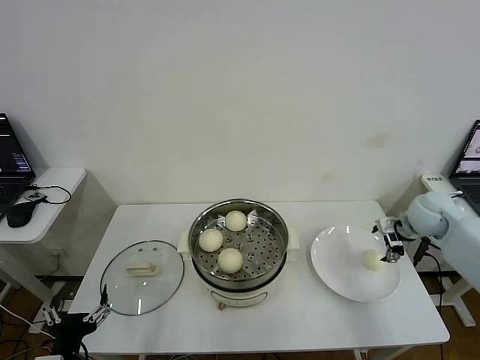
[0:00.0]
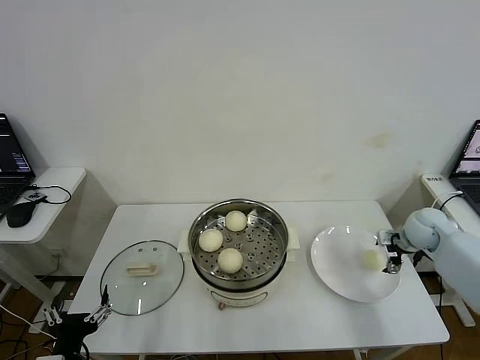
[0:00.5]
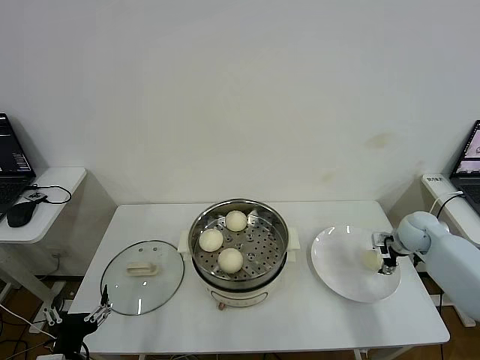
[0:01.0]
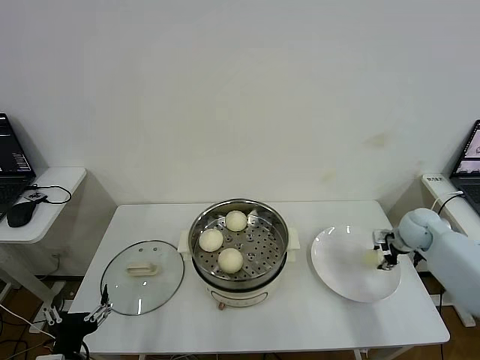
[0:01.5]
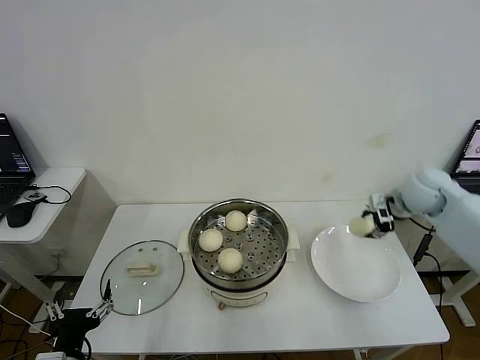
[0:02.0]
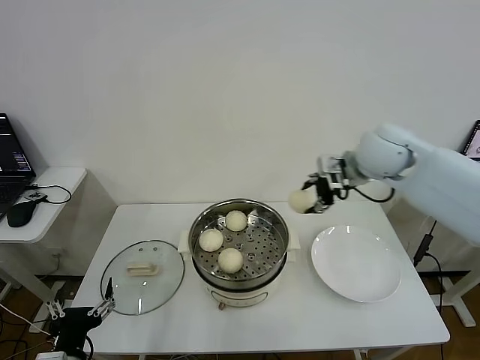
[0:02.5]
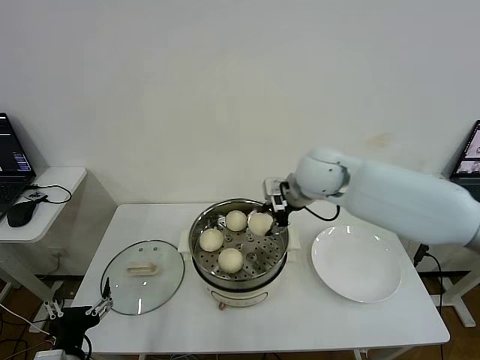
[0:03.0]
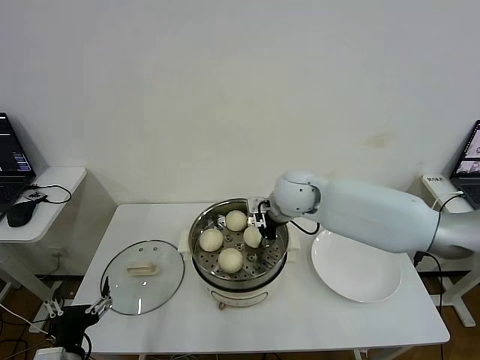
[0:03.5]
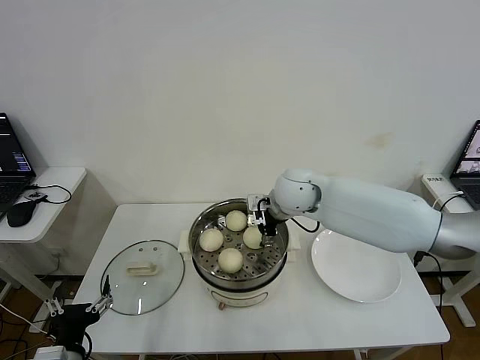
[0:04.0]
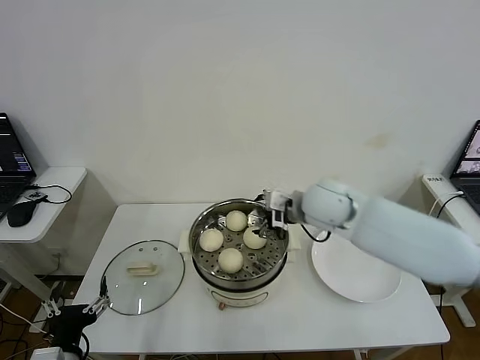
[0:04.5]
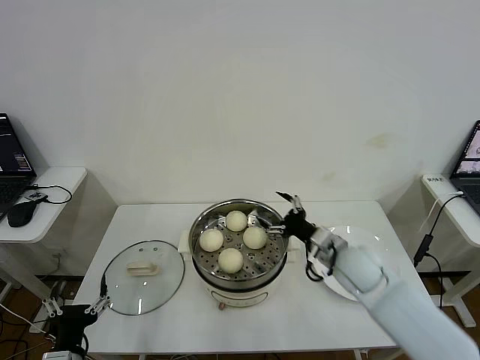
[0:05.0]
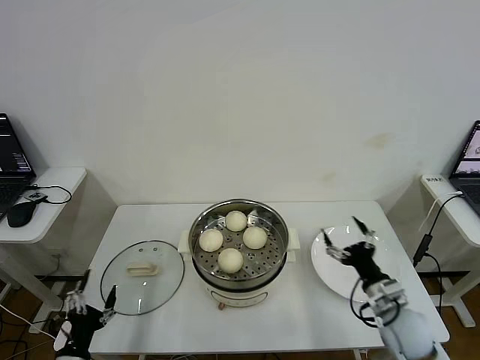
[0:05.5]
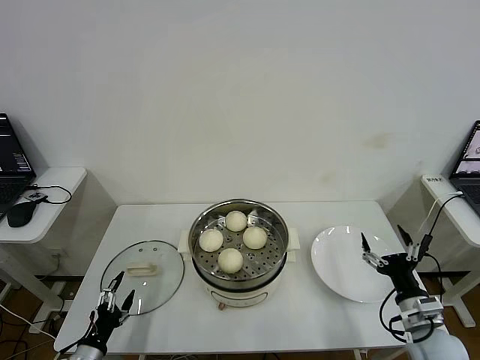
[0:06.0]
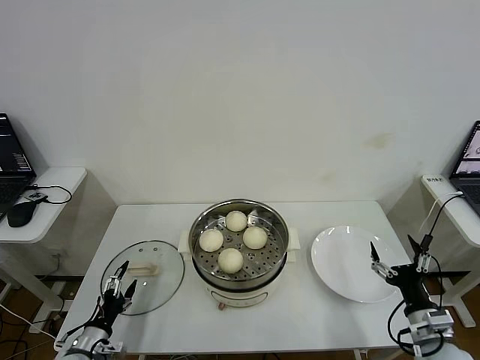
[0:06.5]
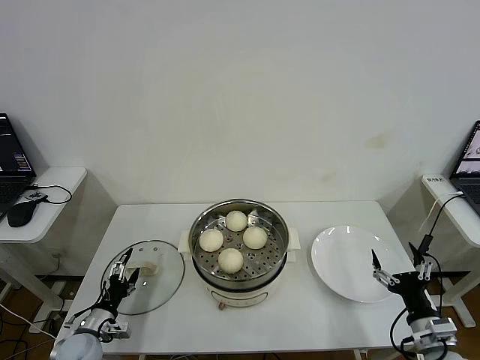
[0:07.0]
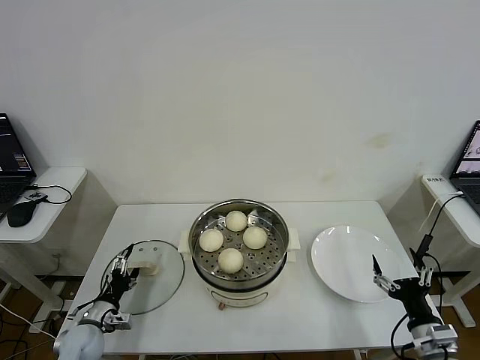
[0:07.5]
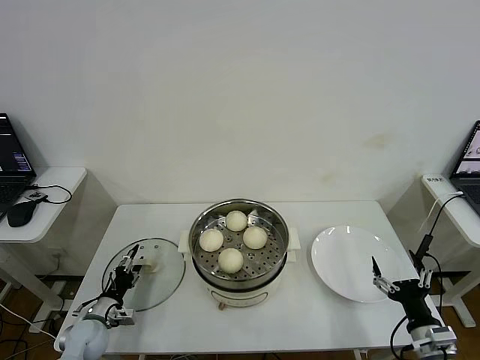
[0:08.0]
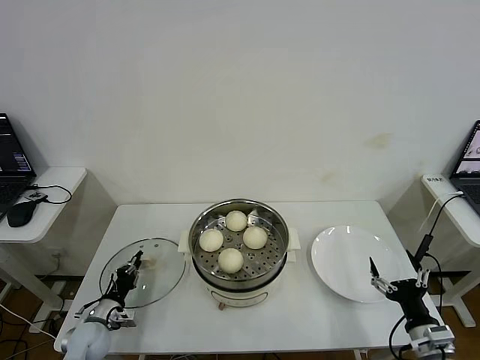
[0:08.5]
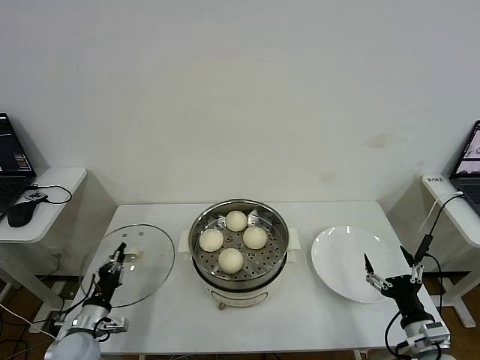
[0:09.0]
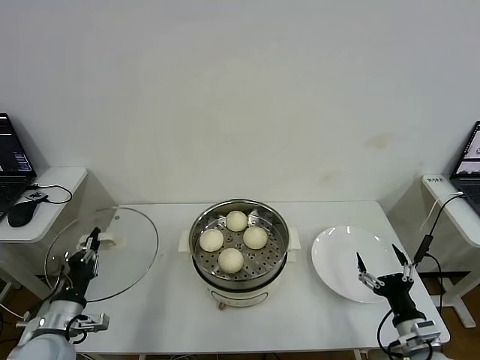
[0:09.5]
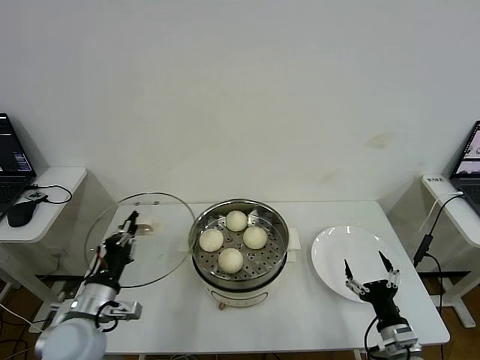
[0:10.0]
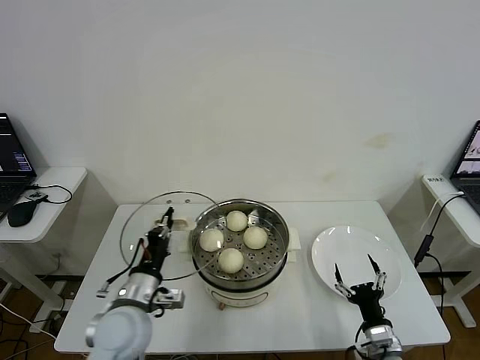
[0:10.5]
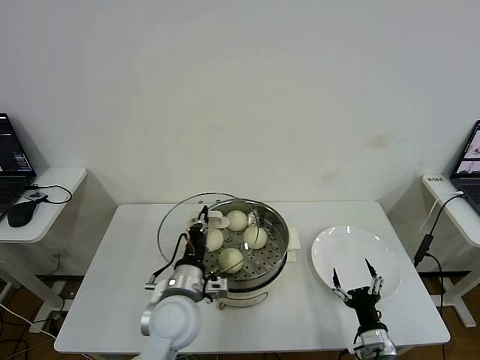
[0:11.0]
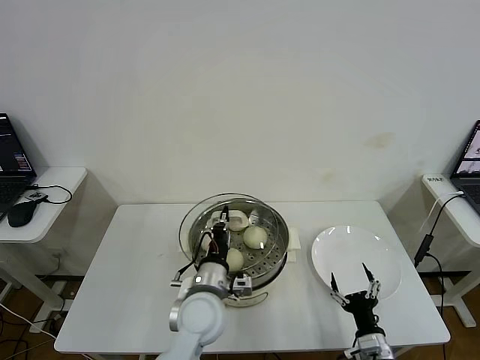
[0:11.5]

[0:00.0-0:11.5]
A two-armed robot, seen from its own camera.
Step, 0:02.0 to 0:04.0: Place the baozi on the steamer with right gripper.
Step, 0:04.5 to 0:08.5: Grasp the pot lid with left gripper.
0:00.0 to 0:02.0: The right gripper heads upward, covering approximately 10 cm, and closes up.
0:02.0 to 0:04.0: The right gripper heads to the left, covering about 25 cm, and opens.
0:04.0 to 0:06.0: The left gripper heads downward and to the left, covering some 15 cm, while the right gripper is displaced backward, to the right and downward by about 40 cm.
0:06.0 to 0:07.5: The left gripper shifts about 10 cm forward. The right gripper ends up about 5 cm from where it was.
0:07.5 to 0:09.5: The left gripper is displaced upward and backward by about 15 cm, and closes up.
0:09.5 to 0:11.5: The left gripper shifts some 30 cm to the right. Meanwhile the right gripper shifts some 10 cm downward and to the left.

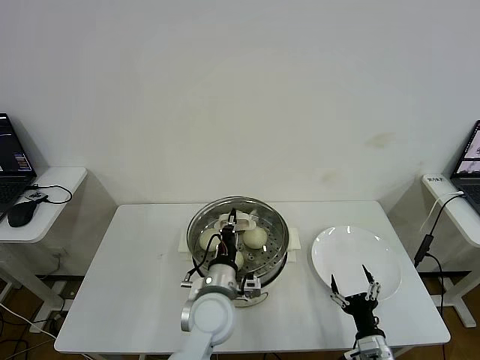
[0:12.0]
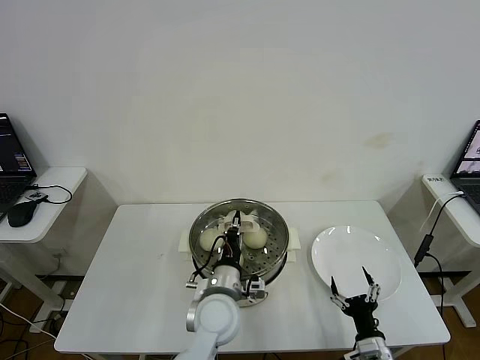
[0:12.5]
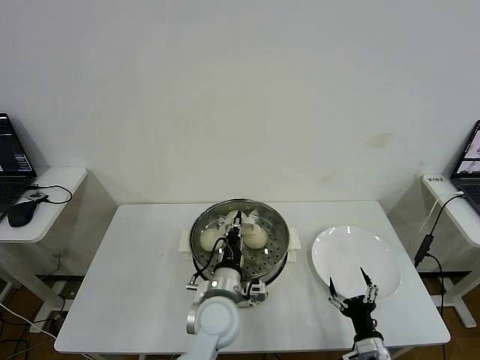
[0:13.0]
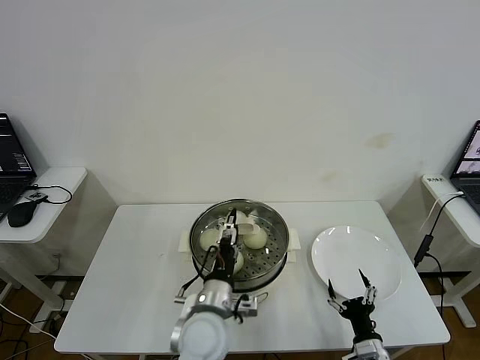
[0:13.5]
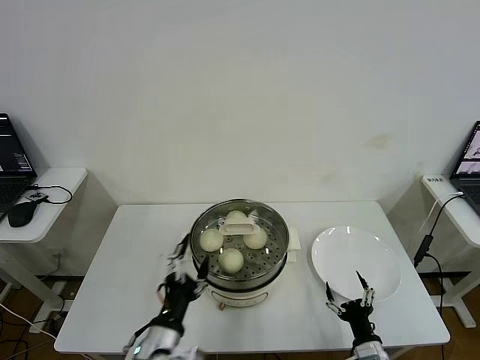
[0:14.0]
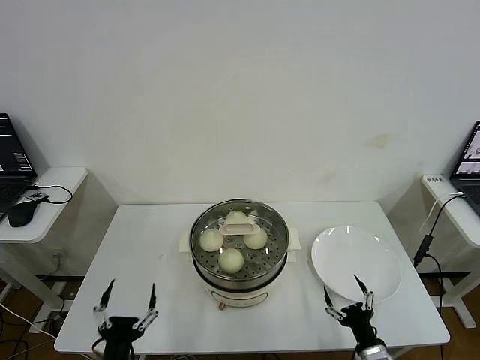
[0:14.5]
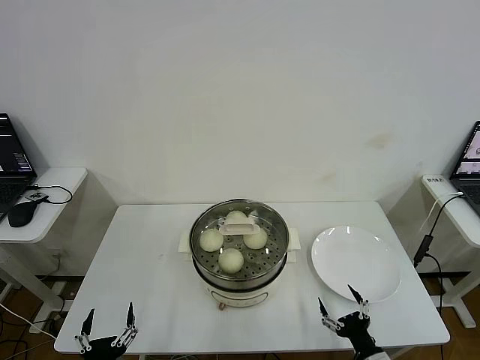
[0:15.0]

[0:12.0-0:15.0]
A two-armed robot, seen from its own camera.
0:12.0 to 0:13.5: The left gripper opens its fingers.
0:13.5 to 0:15.0: The left gripper is displaced to the left, backward and downward by about 30 cm.
